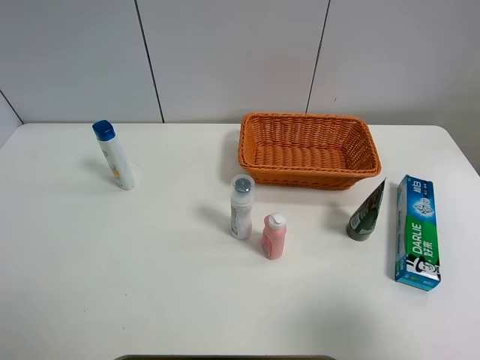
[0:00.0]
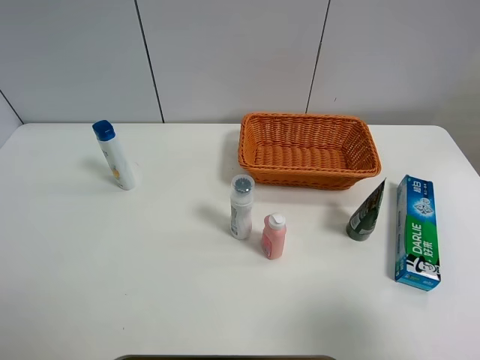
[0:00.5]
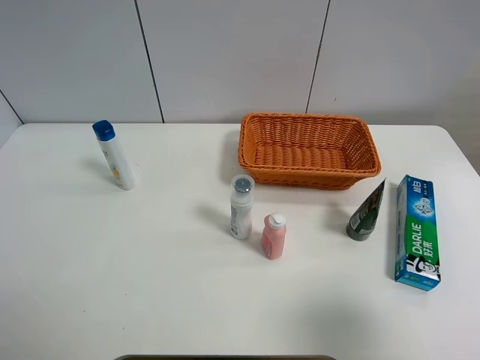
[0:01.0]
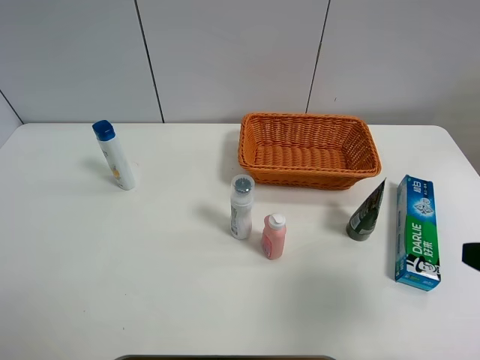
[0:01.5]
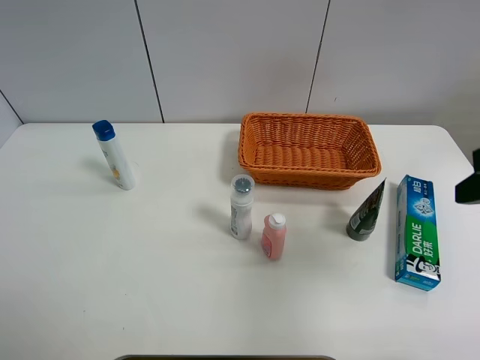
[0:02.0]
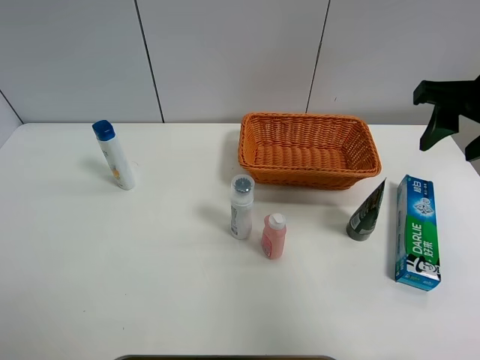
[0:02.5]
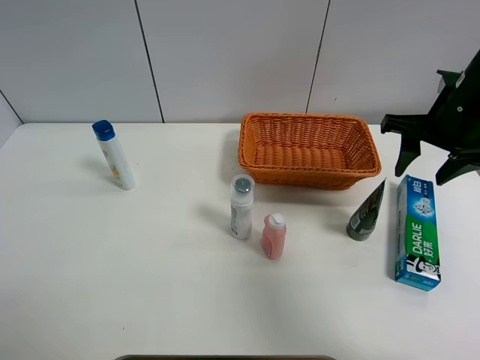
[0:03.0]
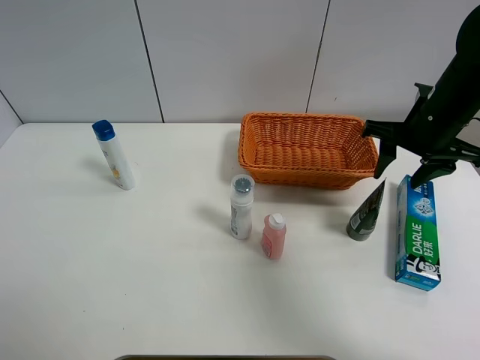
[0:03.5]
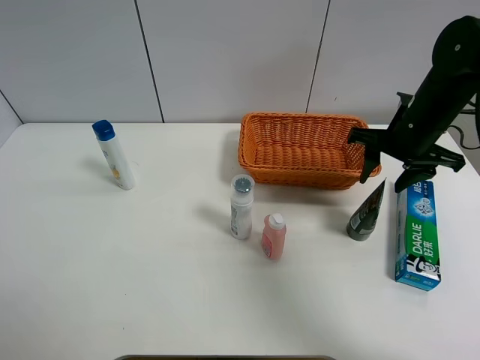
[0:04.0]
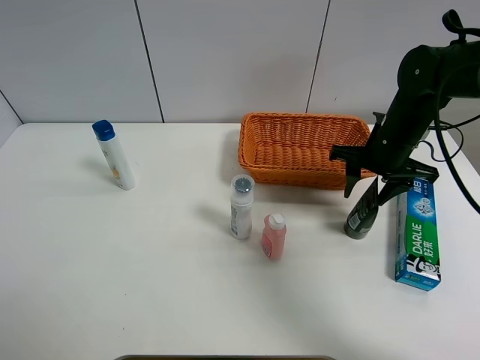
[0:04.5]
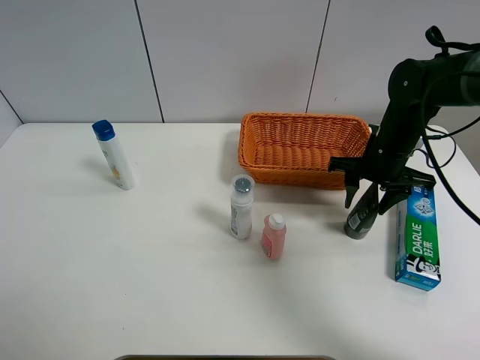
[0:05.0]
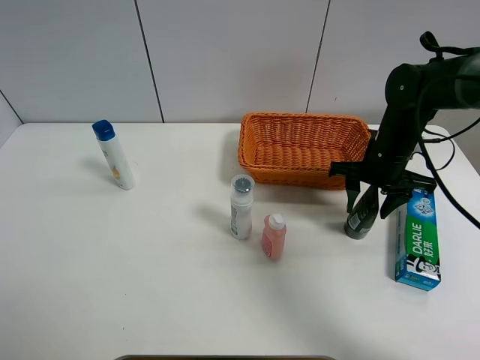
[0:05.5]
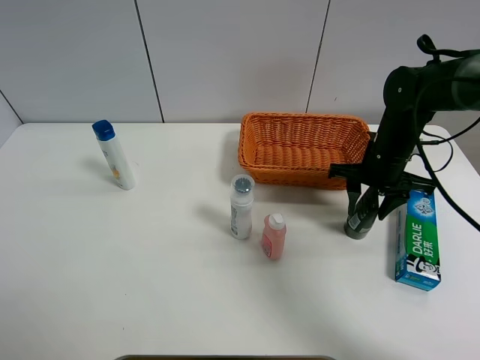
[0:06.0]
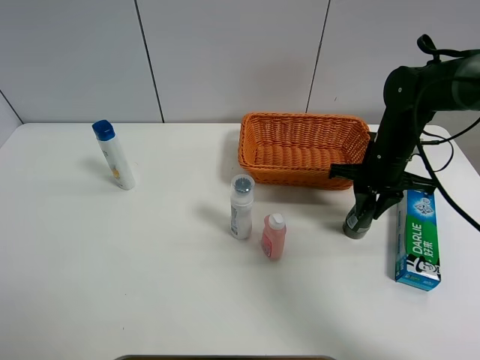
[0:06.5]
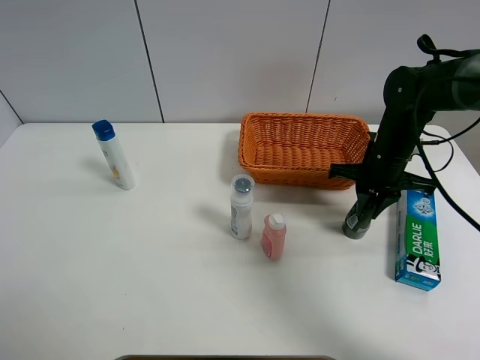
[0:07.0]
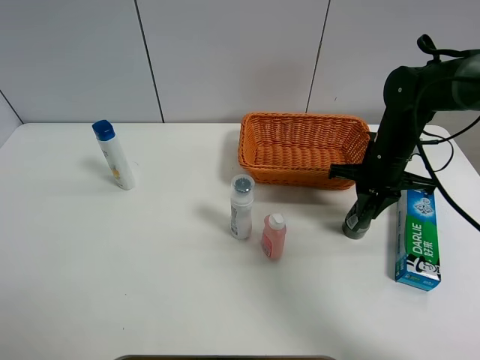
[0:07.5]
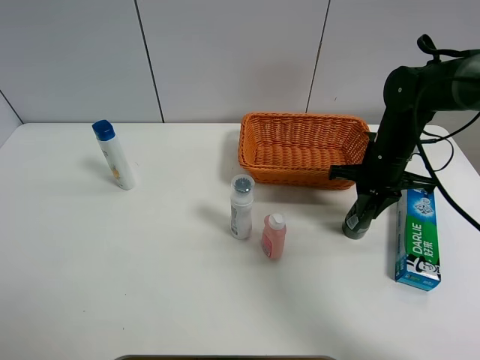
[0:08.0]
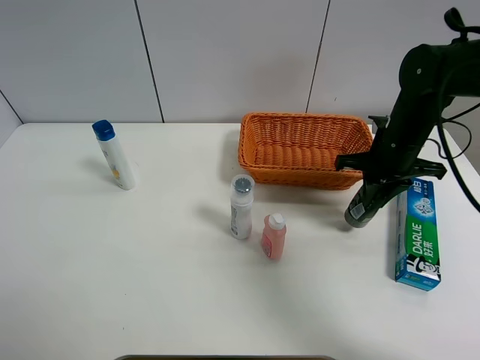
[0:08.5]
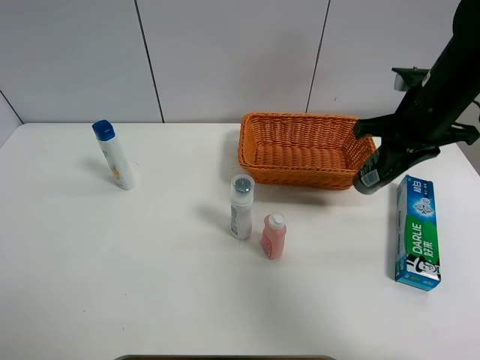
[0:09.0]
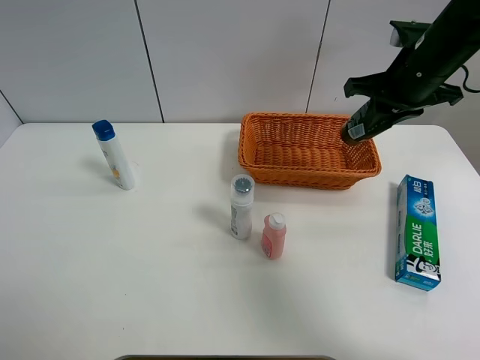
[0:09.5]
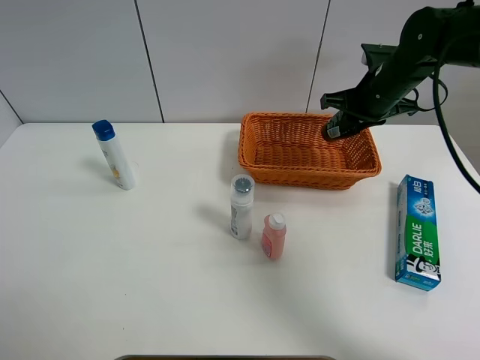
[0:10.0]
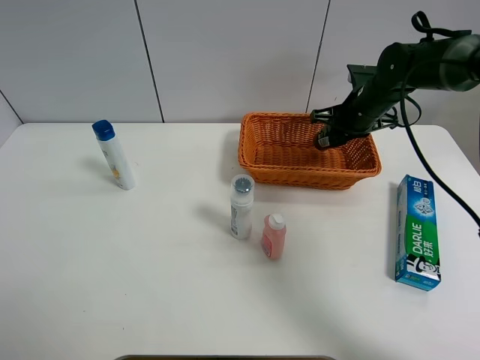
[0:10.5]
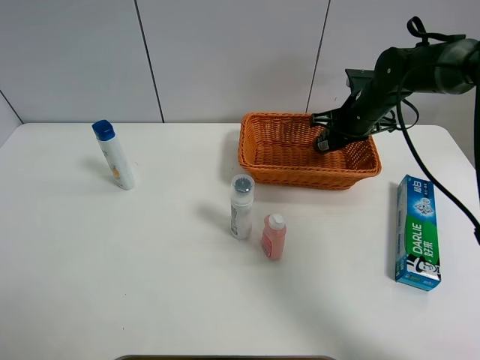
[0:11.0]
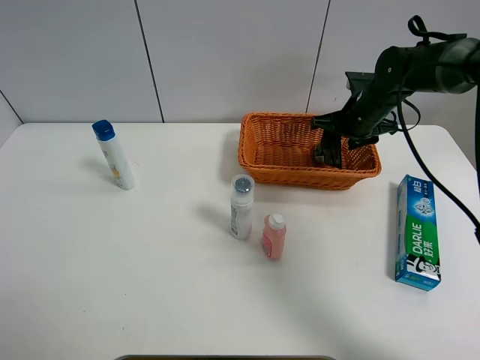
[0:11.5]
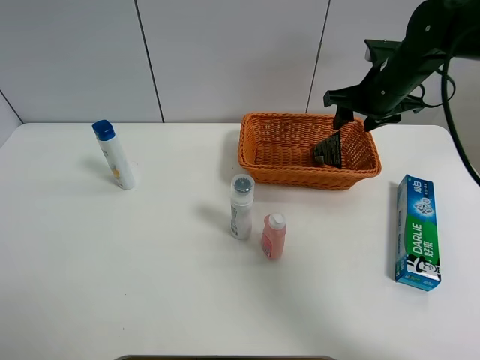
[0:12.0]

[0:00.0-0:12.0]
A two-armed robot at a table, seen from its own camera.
Task of the whole recording: Place the object closest to the toothpaste in the basket.
Step, 0:00.0 to 0:07.0: Grasp the soft facial cleanser with right gripper.
0:00.0 to 0:02.0: The right gripper shifts roughly 15 cm forward and upward.
0:02.0 to 0:04.0: The right gripper travels forward and downward by about 20 cm.
0:04.0 to 0:06.0: The right gripper is displaced downward by approximately 5 cm.
0:06.0 to 0:08.0: The right gripper closes up.
0:08.0 to 0:10.0: The right gripper travels upward and forward by approximately 10 cm.
0:10.0 to 0:12.0: The right gripper opens.

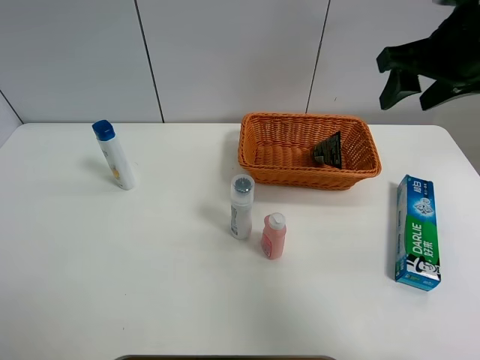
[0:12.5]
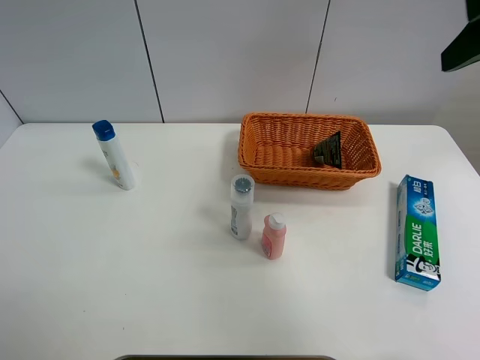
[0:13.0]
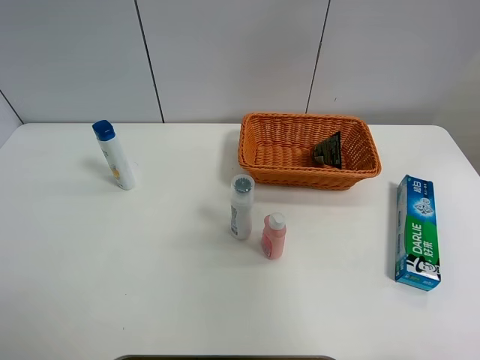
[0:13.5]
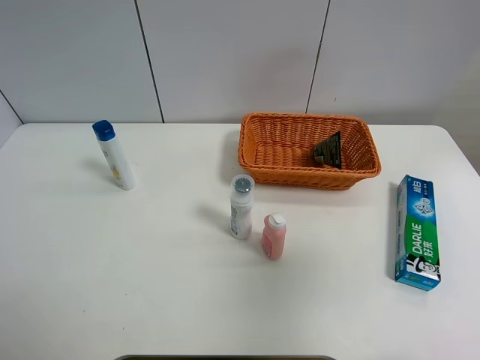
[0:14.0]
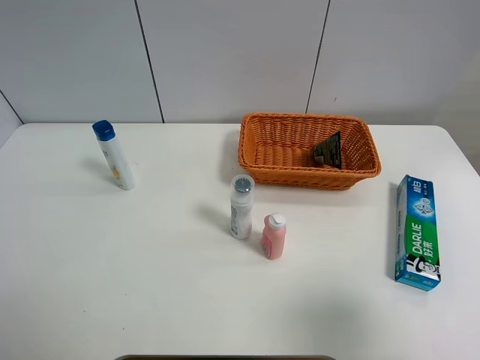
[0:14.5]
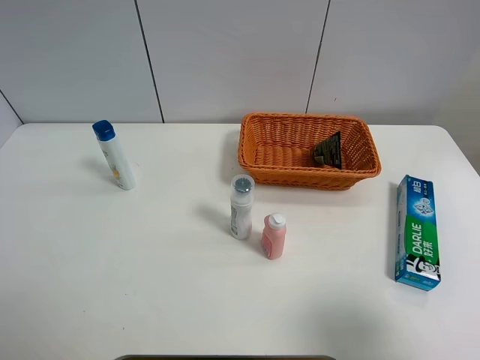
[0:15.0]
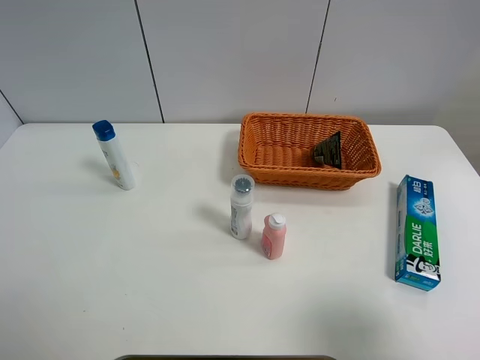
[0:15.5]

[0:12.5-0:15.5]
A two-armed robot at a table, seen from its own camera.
Task of the whole recording: Place the object closest to the toothpaste in the basket.
0:12.5 to 0:14.0: The right gripper shifts roughly 25 cm backward.
0:14.0 to 0:15.5: The right gripper shifts roughly 10 cm downward and backward.
